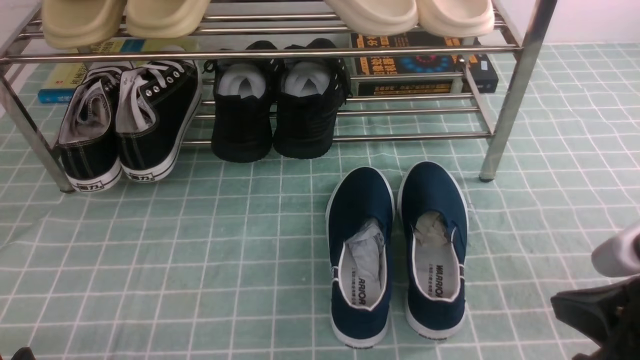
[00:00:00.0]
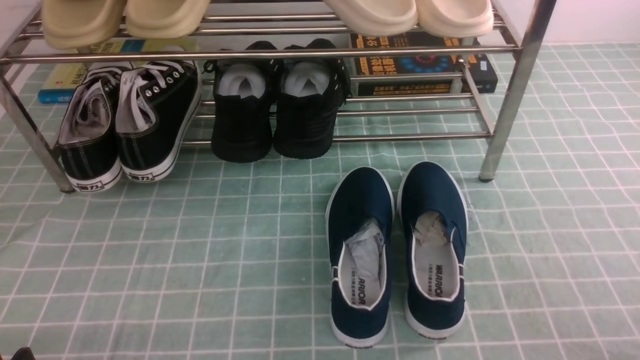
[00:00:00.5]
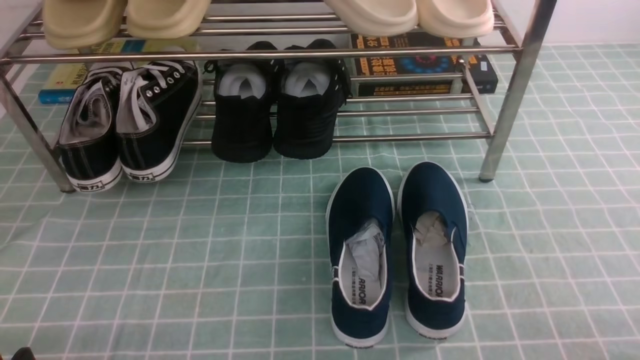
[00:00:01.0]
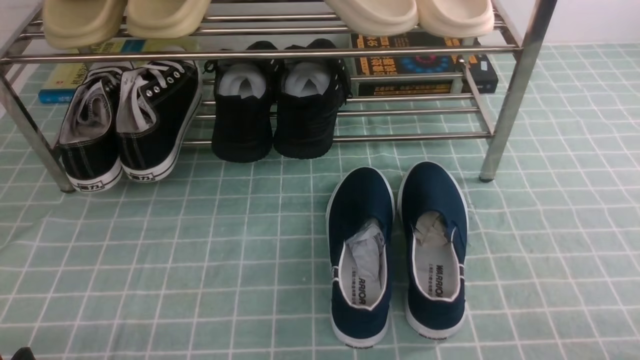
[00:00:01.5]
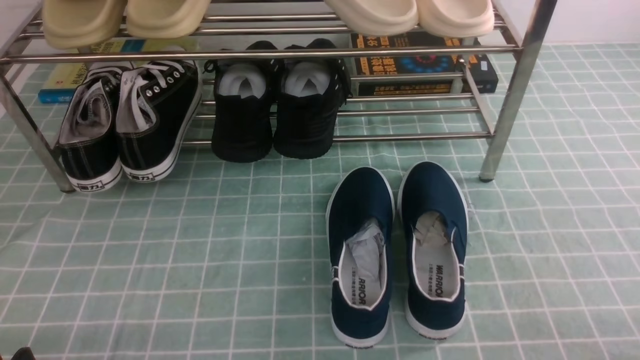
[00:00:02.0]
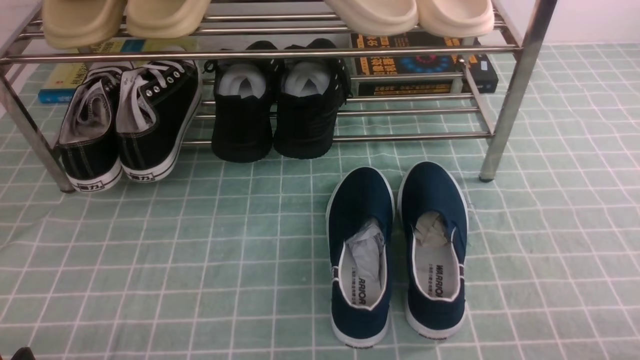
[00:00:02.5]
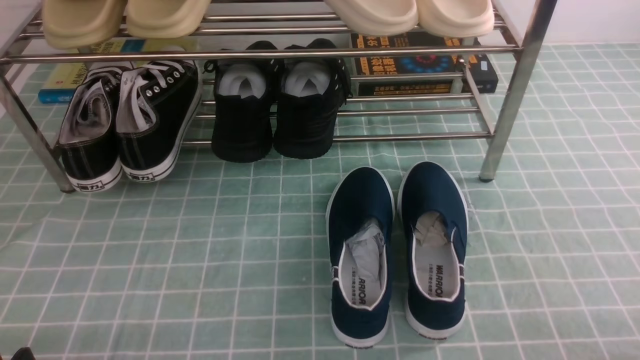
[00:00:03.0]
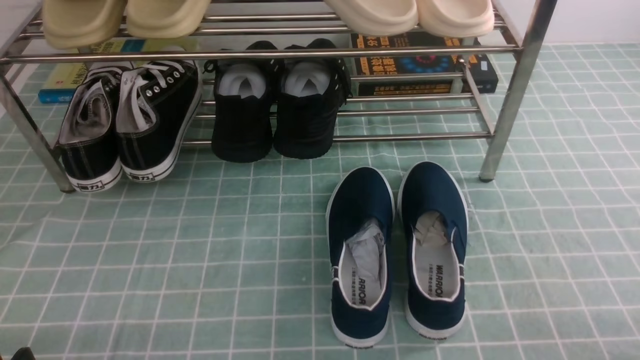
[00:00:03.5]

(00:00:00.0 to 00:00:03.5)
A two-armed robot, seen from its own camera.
00:00:00.0 - 00:00:02.0: The right gripper shifts roughly 15 cm downward, to the right and backward.
00:00:02.0 - 00:00:03.5: Both grippers stay put.
